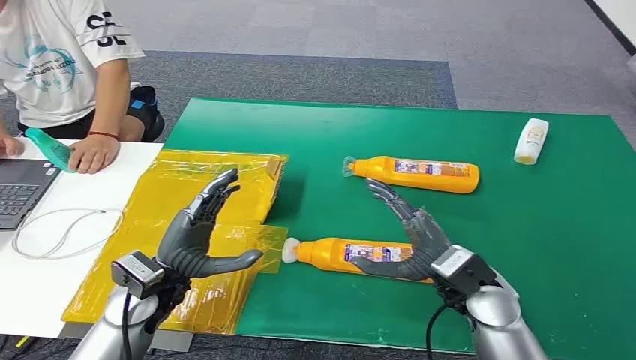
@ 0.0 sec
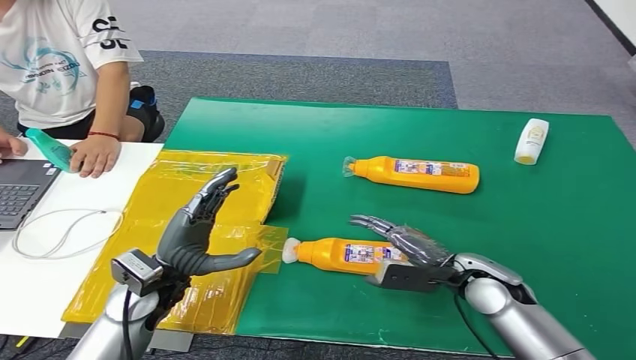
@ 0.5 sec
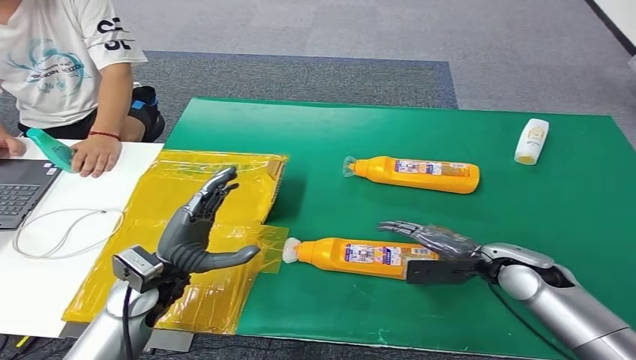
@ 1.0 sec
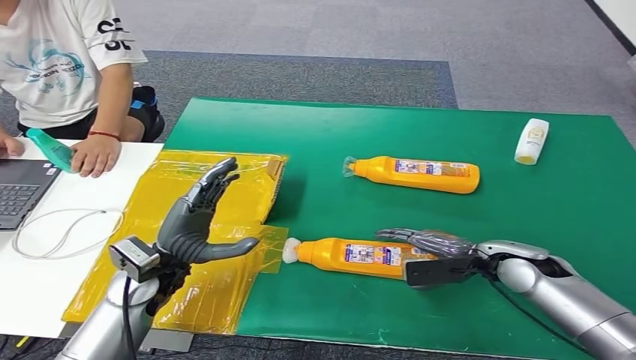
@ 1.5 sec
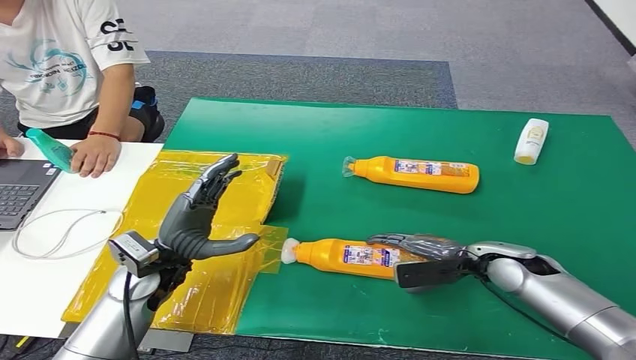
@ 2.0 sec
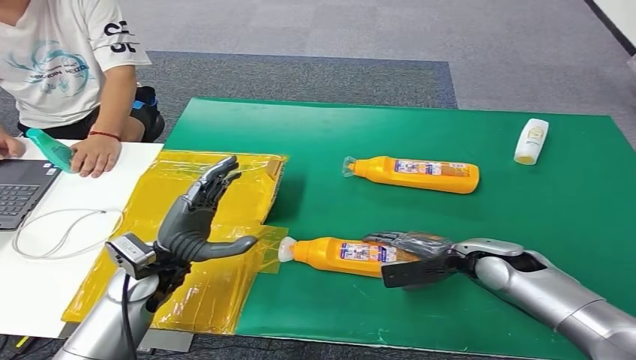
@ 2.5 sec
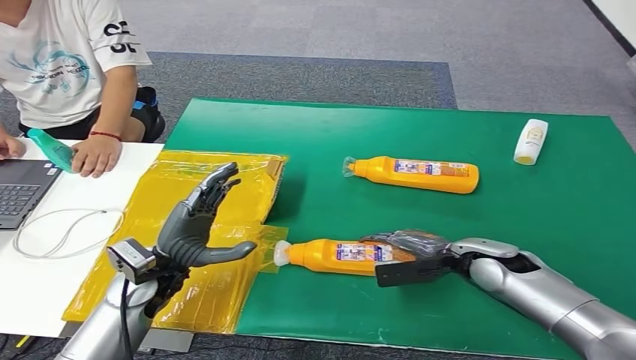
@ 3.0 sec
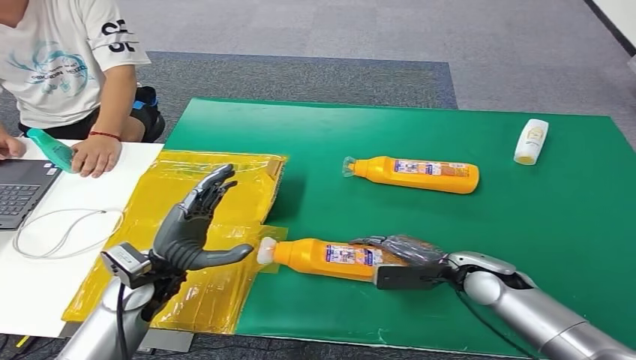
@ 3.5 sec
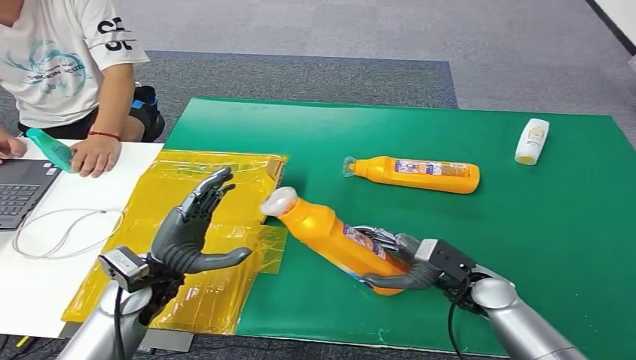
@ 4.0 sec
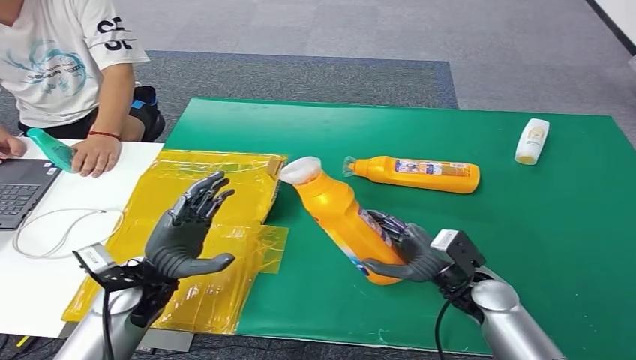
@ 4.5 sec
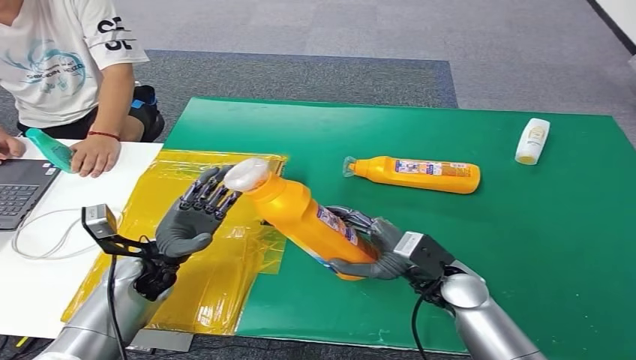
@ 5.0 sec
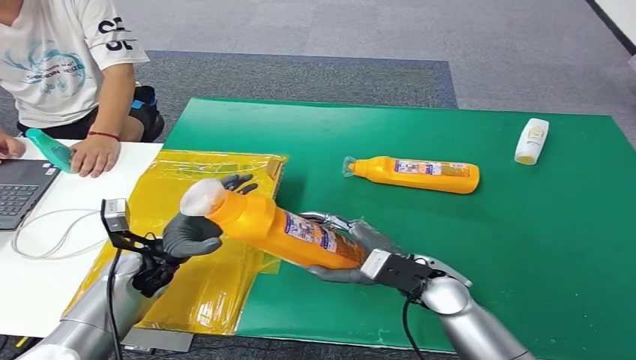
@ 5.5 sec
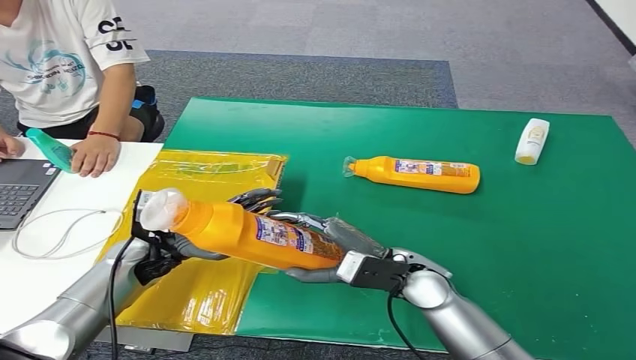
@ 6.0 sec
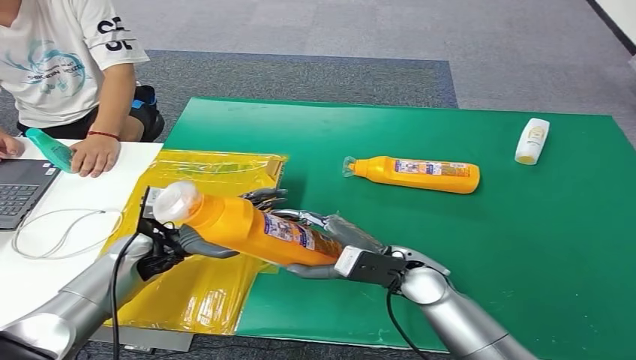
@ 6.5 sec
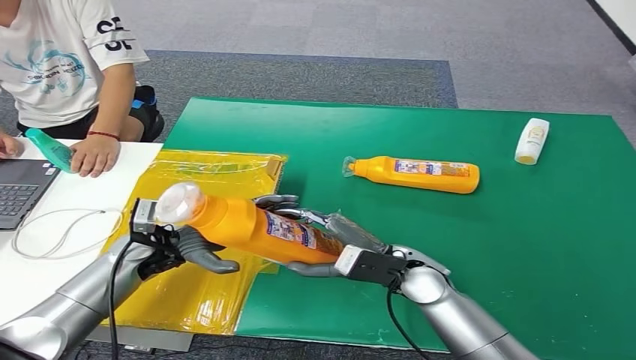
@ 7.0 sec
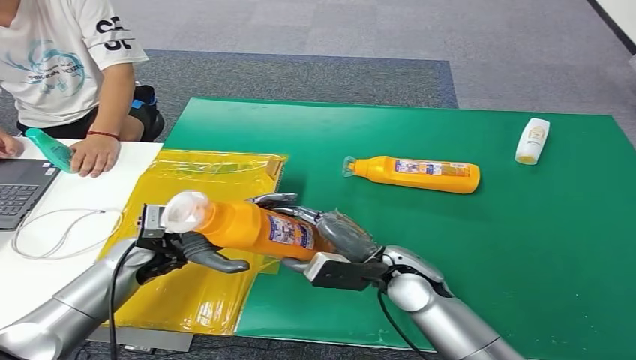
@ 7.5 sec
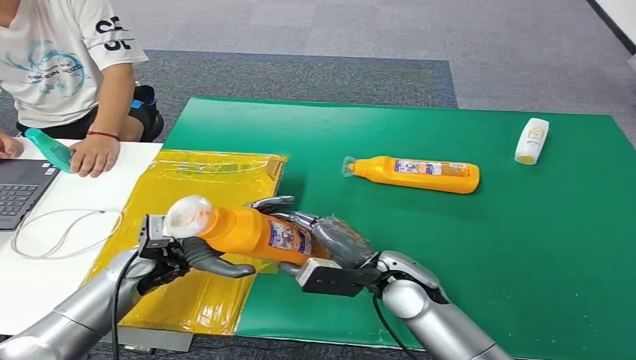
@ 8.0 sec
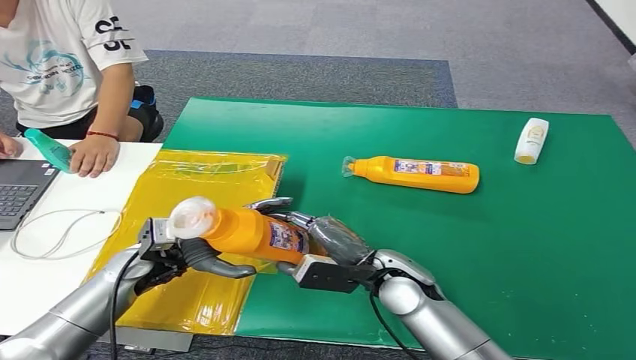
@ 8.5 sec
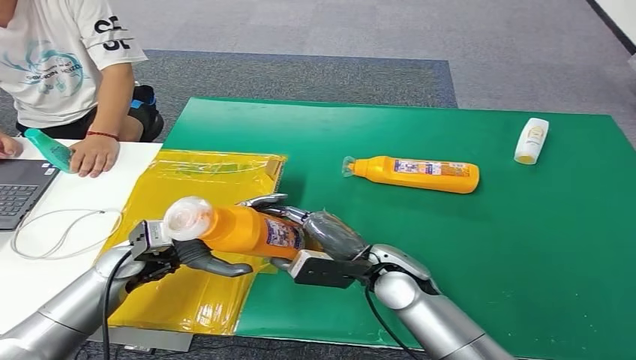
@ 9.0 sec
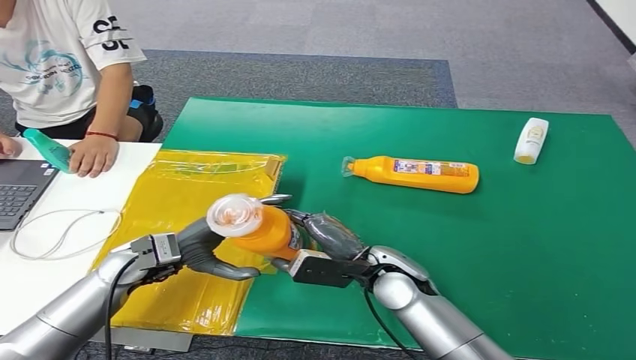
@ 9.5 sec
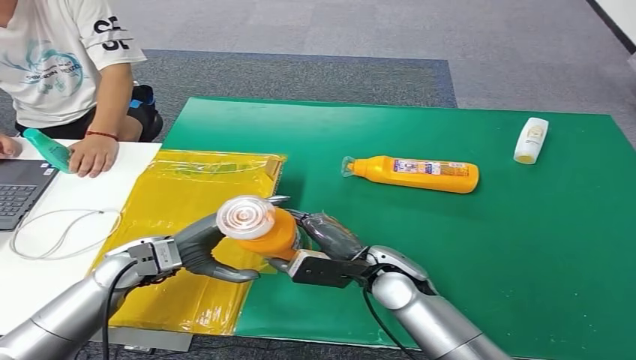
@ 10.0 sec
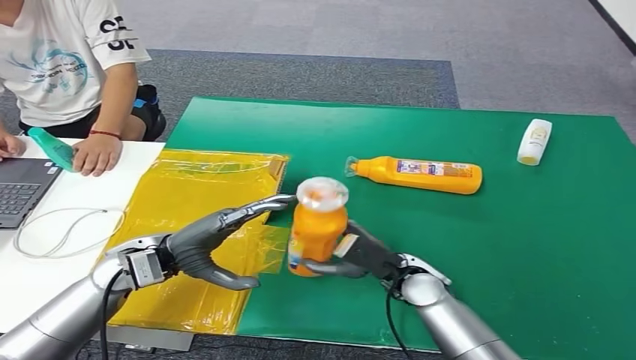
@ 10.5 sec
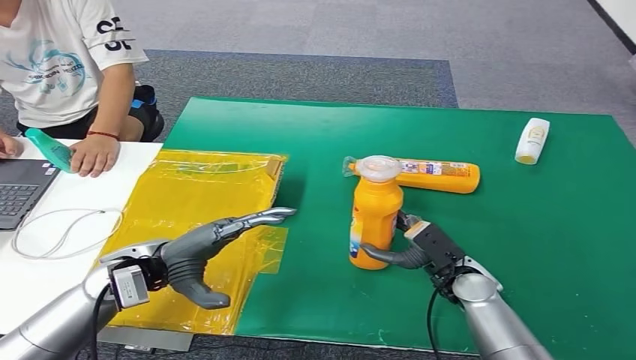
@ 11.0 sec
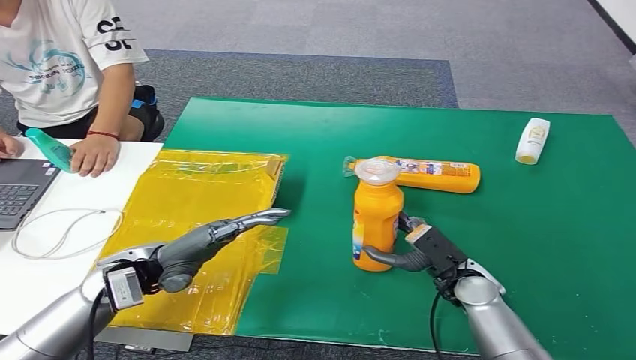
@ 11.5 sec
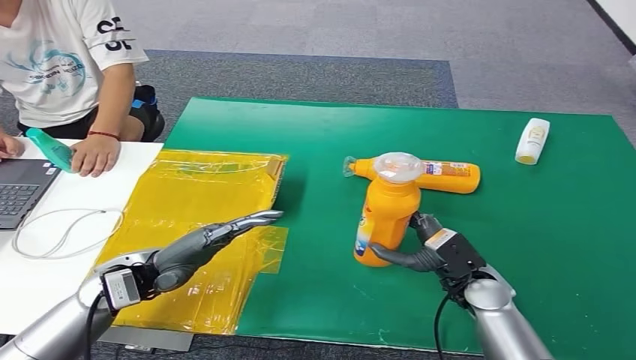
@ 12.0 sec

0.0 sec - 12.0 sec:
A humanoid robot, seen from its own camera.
Step, 0.0 sec - 5.5 sec: Pick up the bottle from the table.
2.0 sec - 4.0 sec: The right hand shifts by some 5 cm.
4.0 sec - 6.0 sec: The right hand is displaced to the left and upward by approximately 15 cm. Meanwhile the left hand is displaced forward by approximately 5 cm.
6.0 sec - 8.0 sec: The hands make only small movements.
10.0 sec - 12.0 sec: The right hand shifts approximately 10 cm to the right.

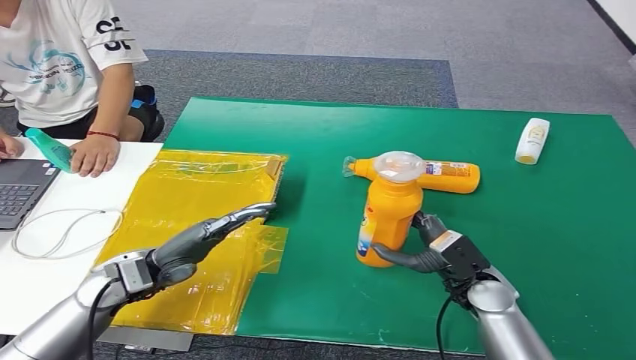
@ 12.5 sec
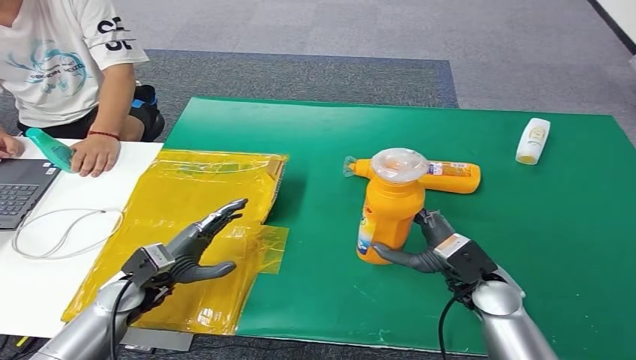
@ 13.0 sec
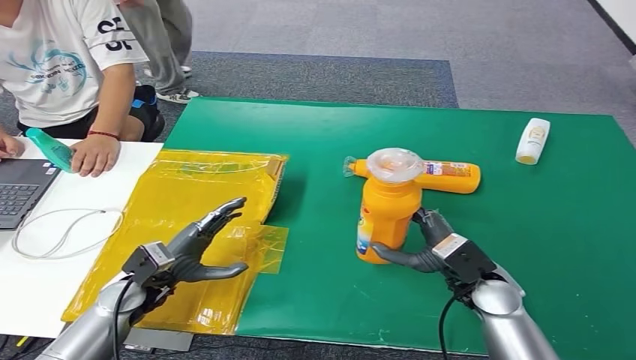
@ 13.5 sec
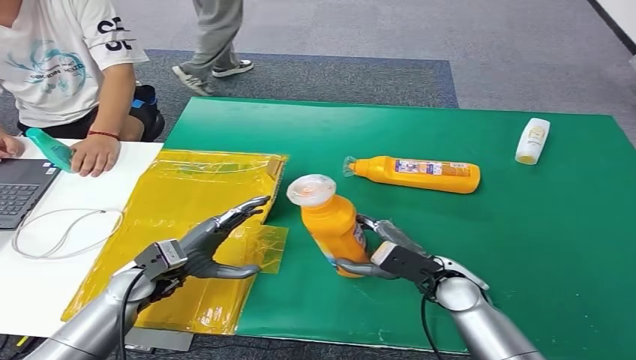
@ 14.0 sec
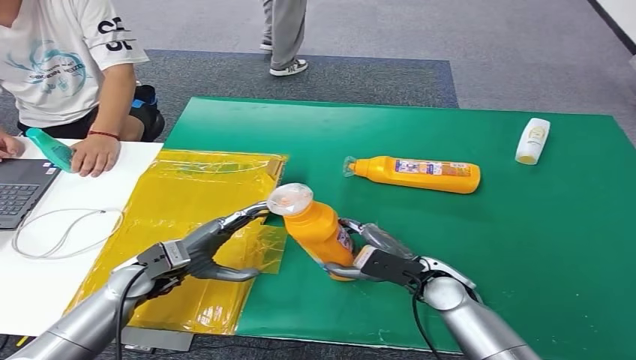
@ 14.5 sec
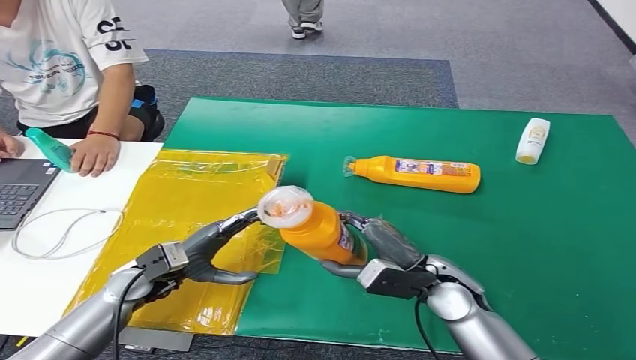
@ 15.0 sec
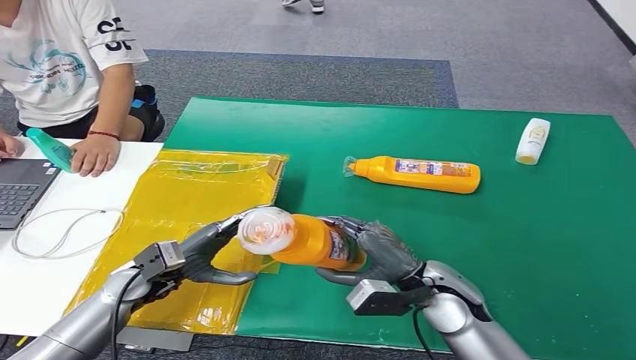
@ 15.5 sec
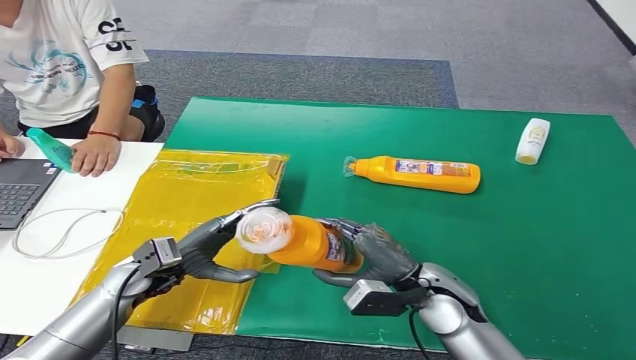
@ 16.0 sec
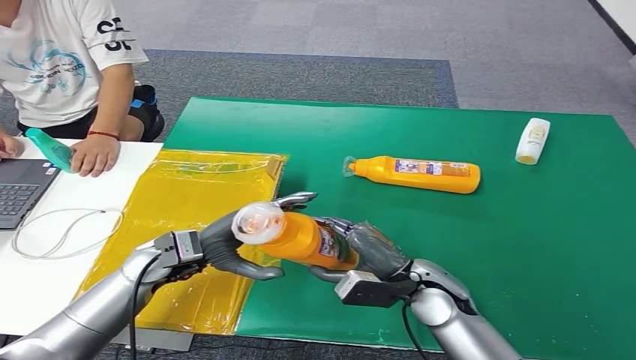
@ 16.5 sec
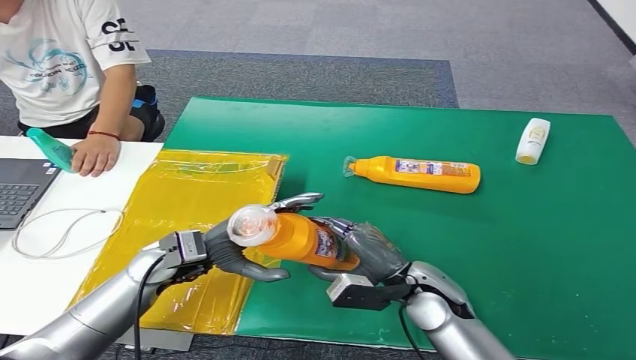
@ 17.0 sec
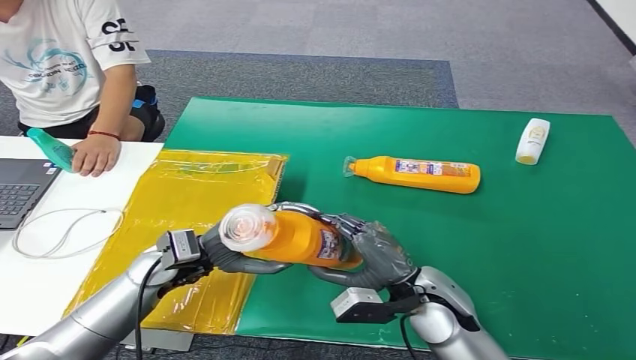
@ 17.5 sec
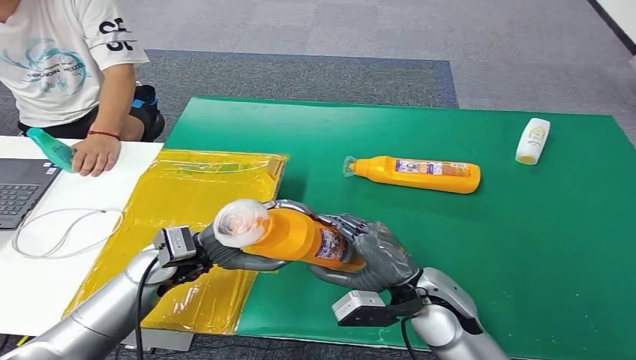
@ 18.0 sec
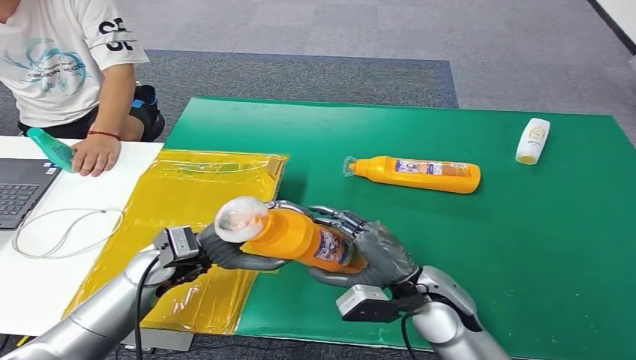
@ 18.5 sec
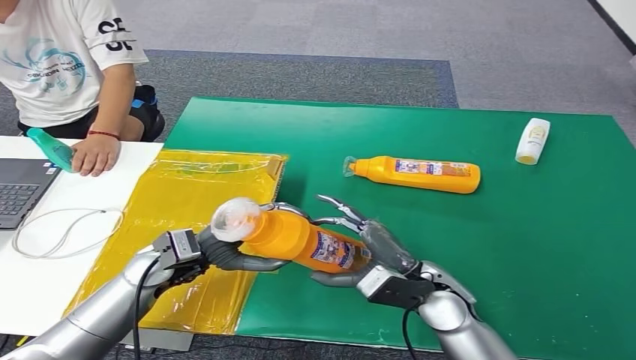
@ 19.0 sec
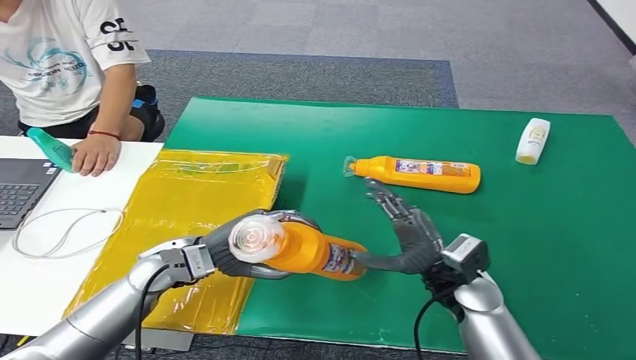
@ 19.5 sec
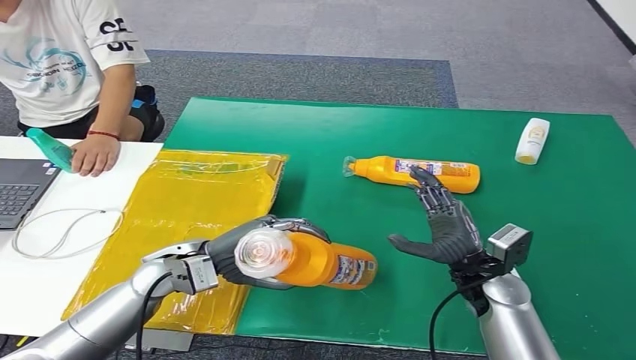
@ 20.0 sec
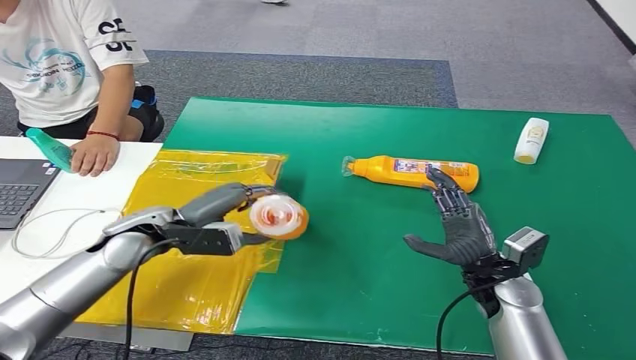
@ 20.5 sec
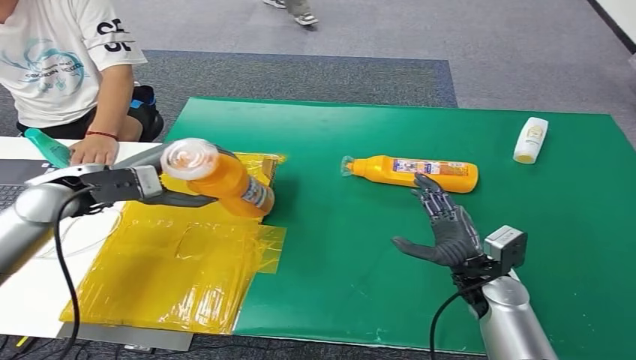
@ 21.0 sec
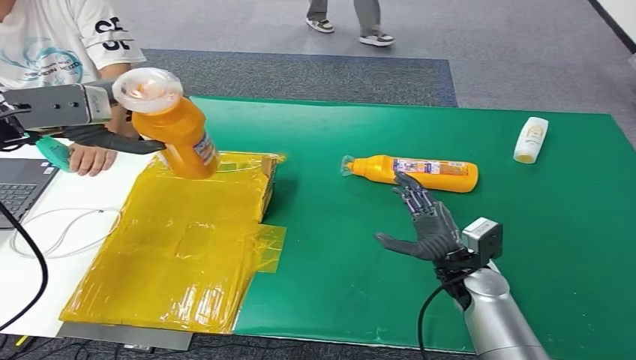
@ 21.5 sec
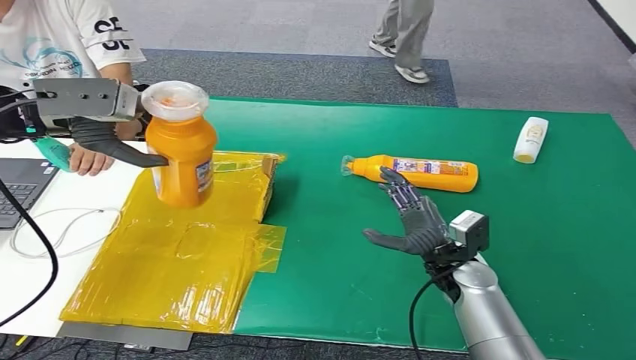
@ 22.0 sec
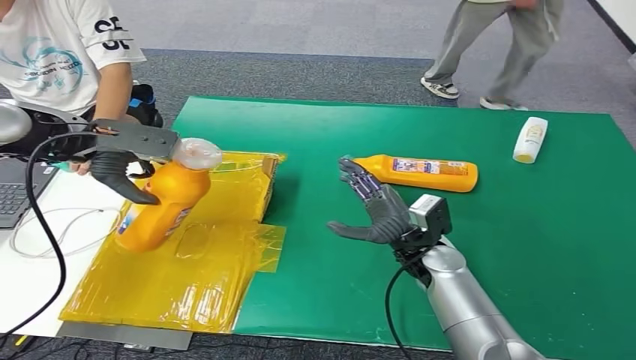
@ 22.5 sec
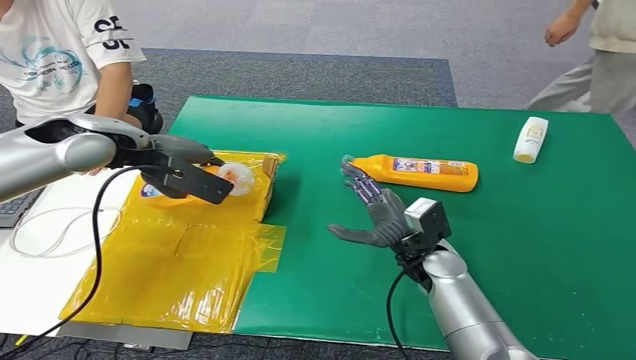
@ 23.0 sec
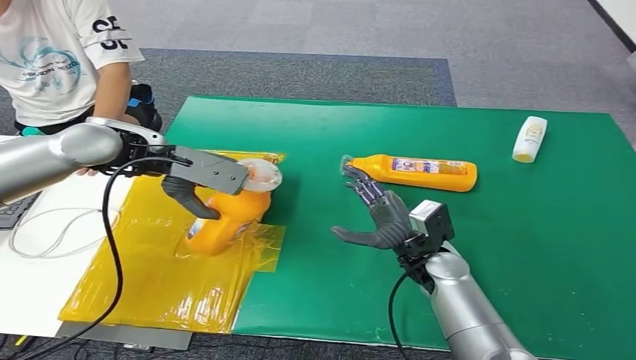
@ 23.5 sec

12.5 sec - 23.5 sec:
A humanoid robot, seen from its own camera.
12.5 sec - 14.5 sec: The right hand heads to the left, covering approximately 5 cm. The left hand is displaced downward by some 5 cm.
16.0 sec - 18.0 sec: The left hand travels to the right by roughly 5 cm.
18.0 sec - 20.0 sec: The right hand heads to the right, covering approximately 10 cm.
